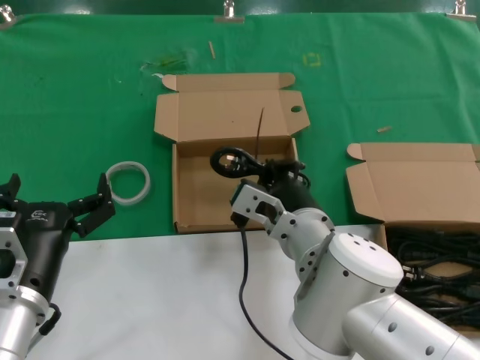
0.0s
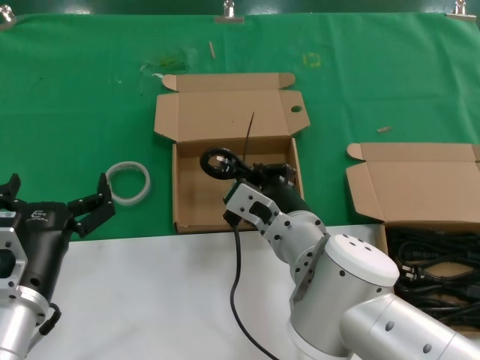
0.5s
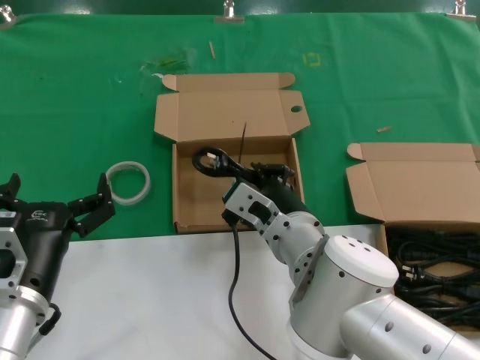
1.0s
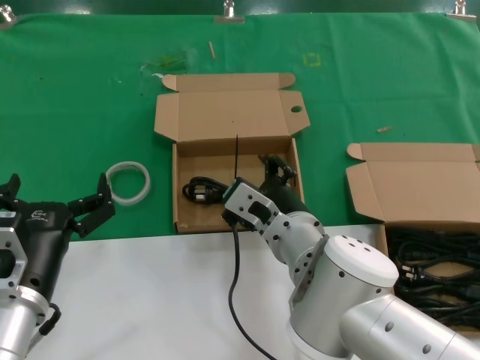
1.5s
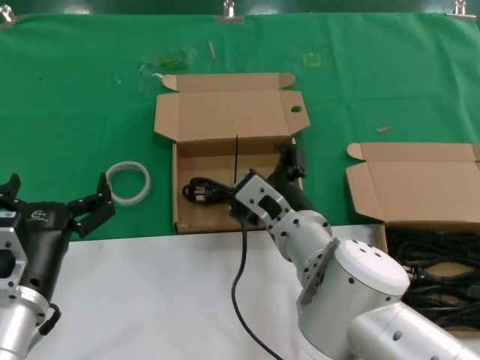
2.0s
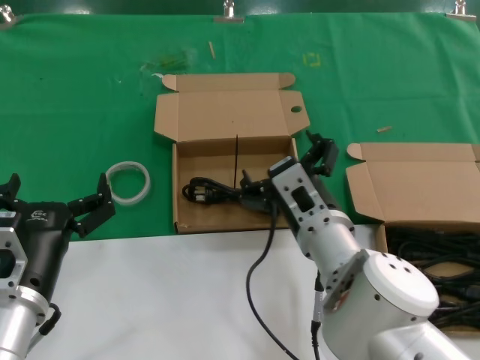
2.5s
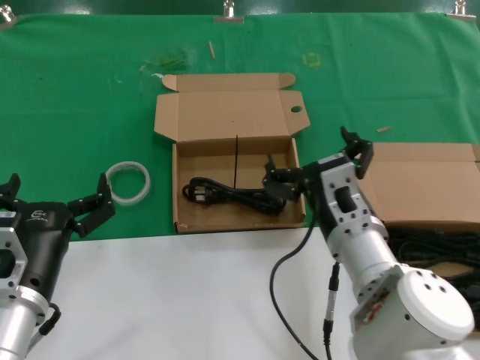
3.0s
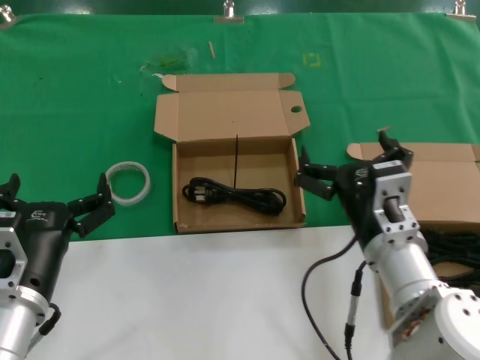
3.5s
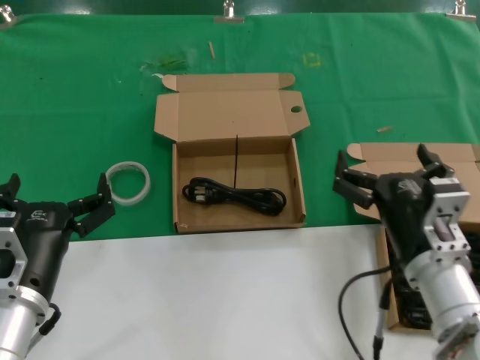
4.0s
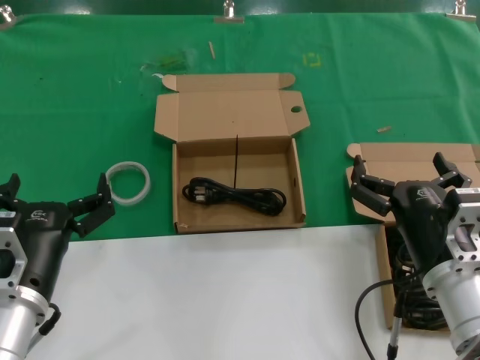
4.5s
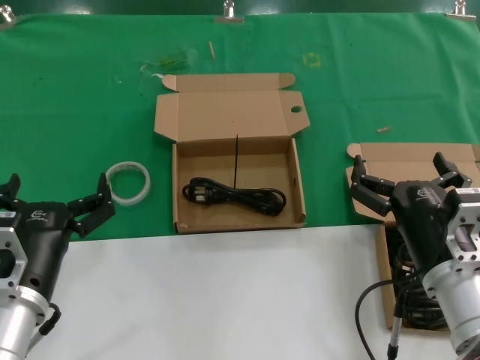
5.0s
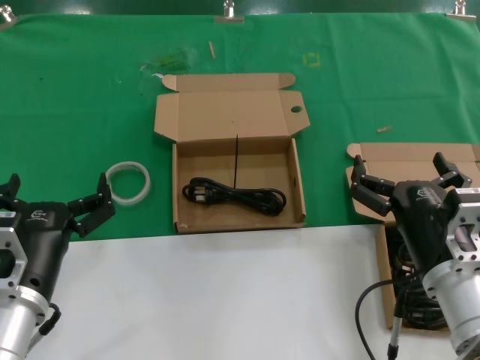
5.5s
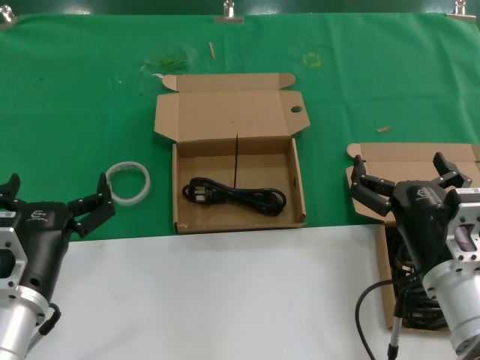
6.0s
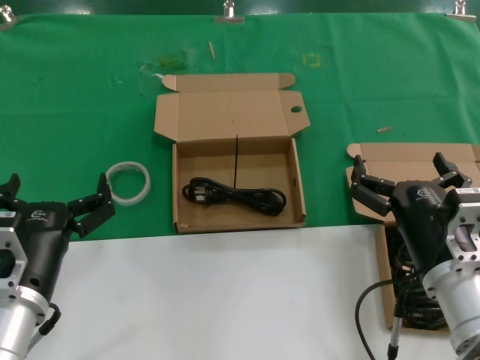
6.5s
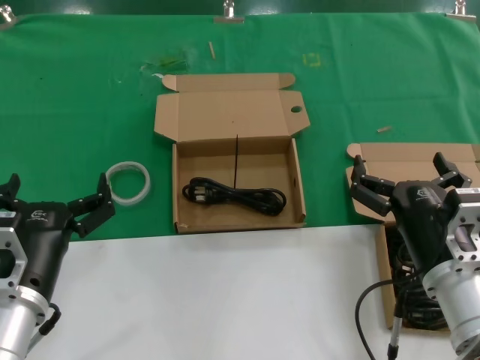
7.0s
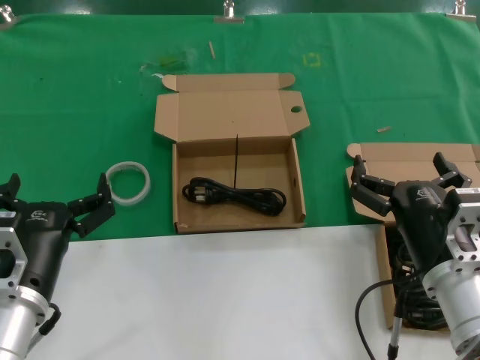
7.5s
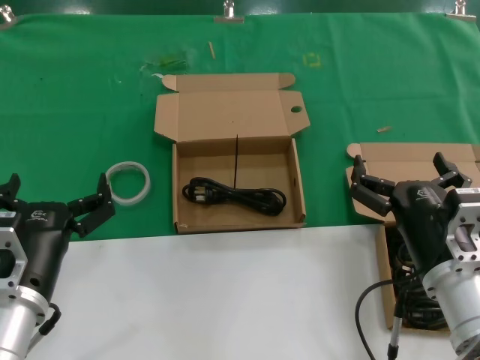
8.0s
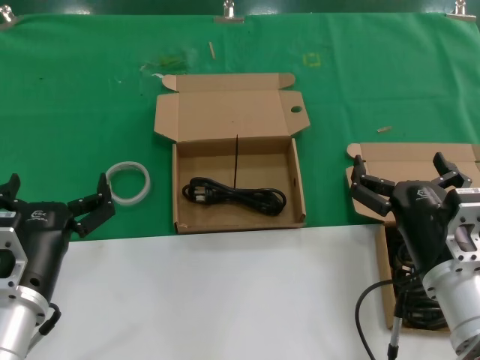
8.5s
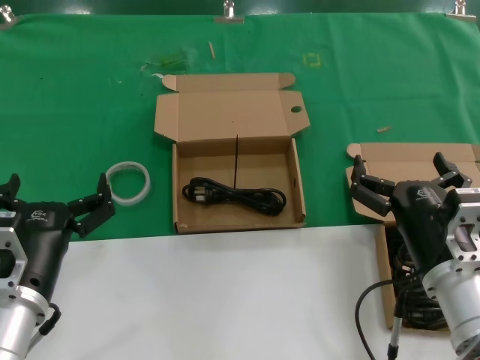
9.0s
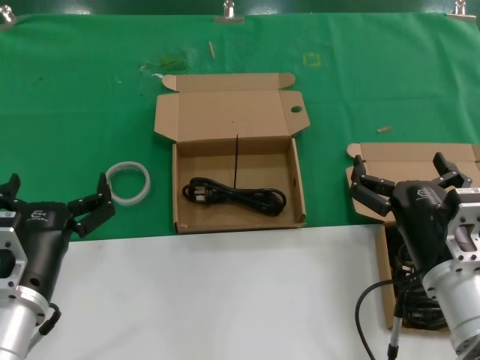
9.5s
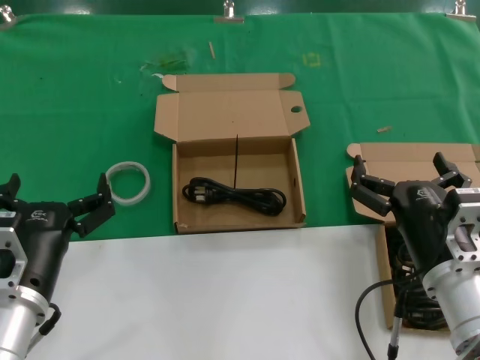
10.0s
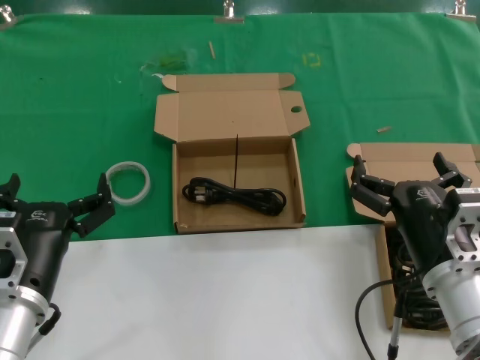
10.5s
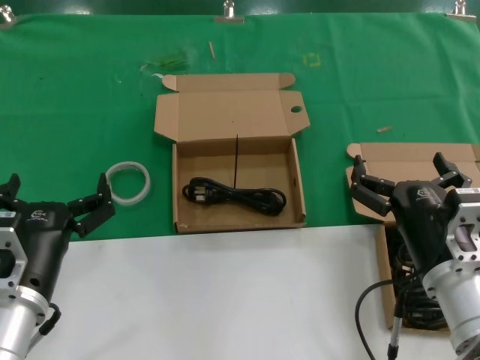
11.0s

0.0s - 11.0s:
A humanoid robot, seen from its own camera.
Task of the whole recording: take the parts from the box containing them and put them into an empty box.
0.0s - 2.0s: There are only small adjustments of the hands.
2.0s - 3.5s: The right hand travels to the right by approximately 10 cm.
3.5s - 5.5s: The right hand is displaced to the right by roughly 5 cm.
5.5s - 11.0s: Both hands stay about where they are.

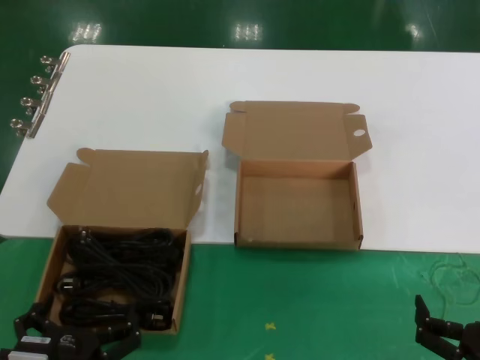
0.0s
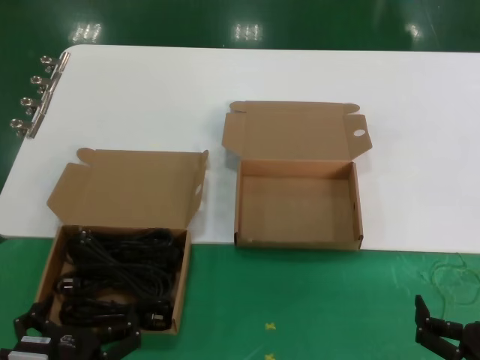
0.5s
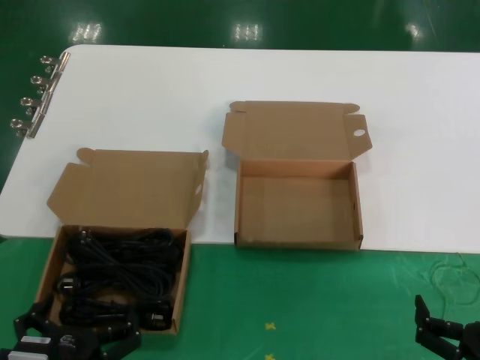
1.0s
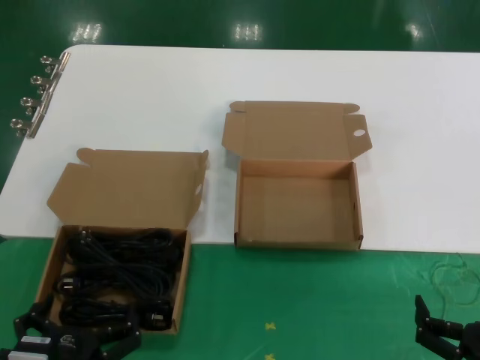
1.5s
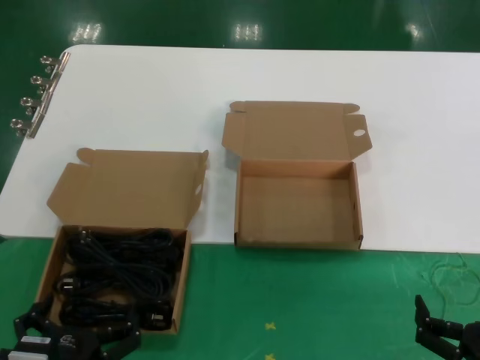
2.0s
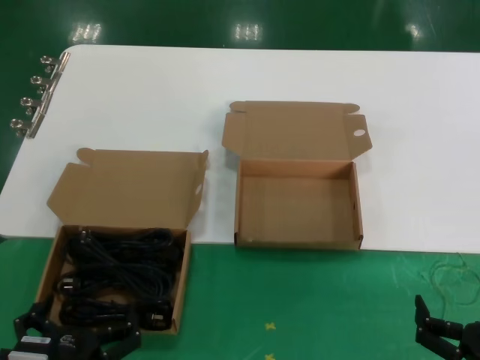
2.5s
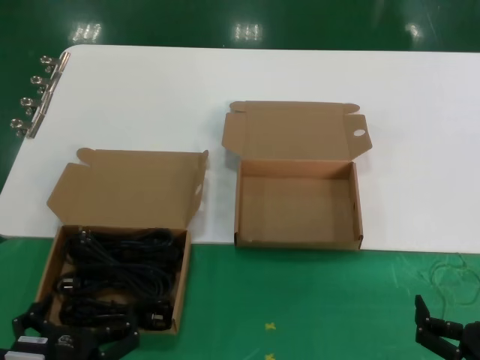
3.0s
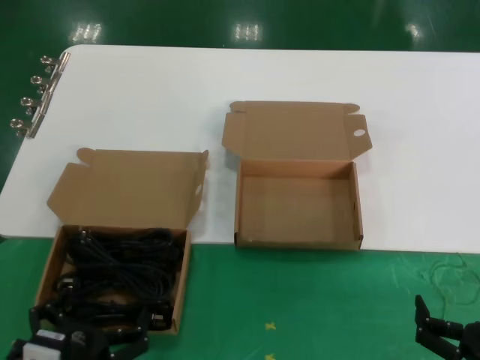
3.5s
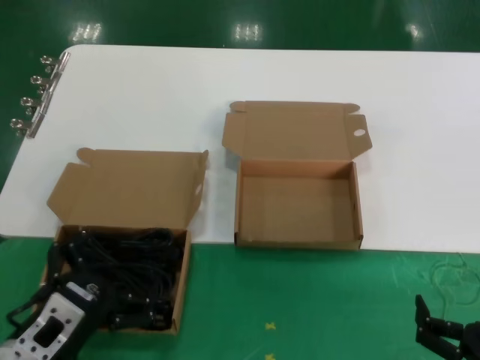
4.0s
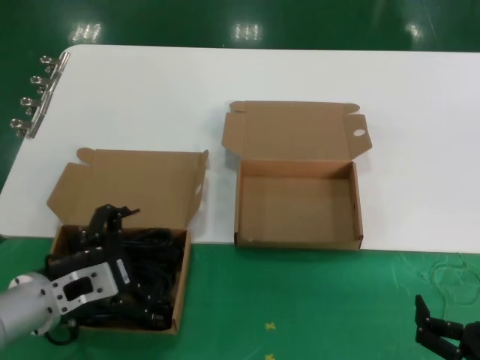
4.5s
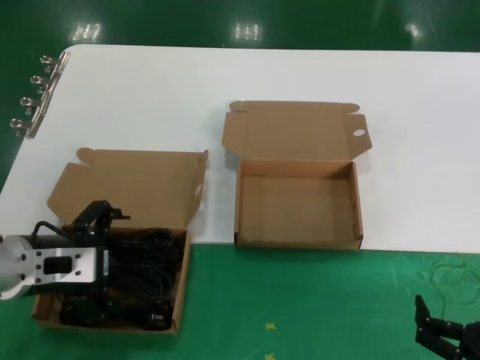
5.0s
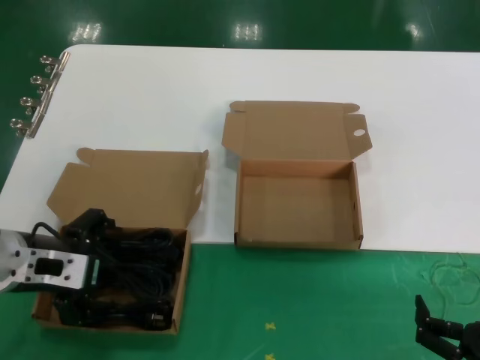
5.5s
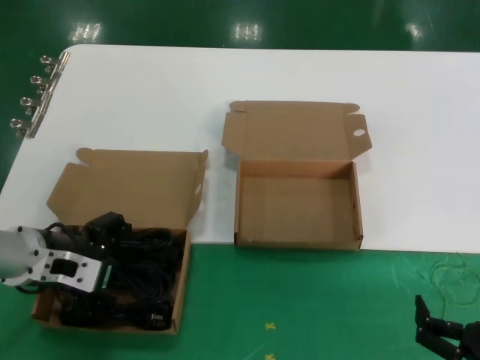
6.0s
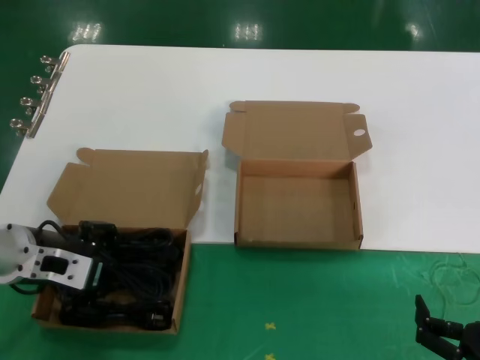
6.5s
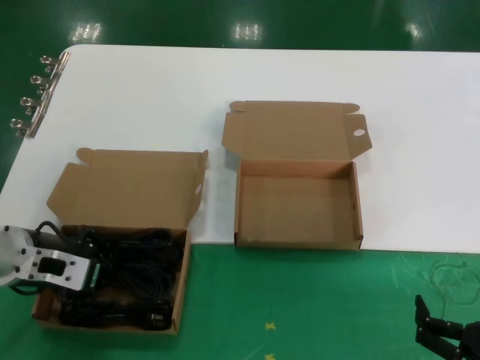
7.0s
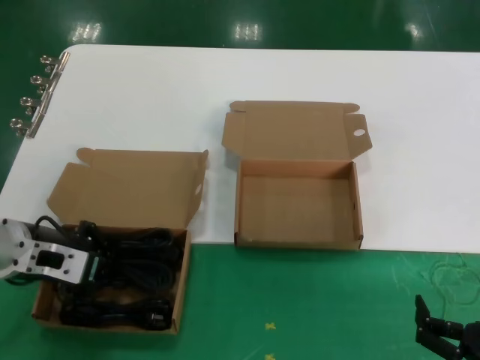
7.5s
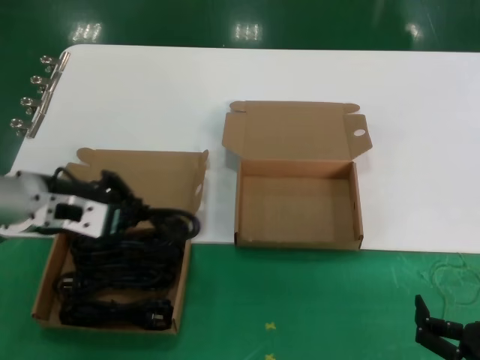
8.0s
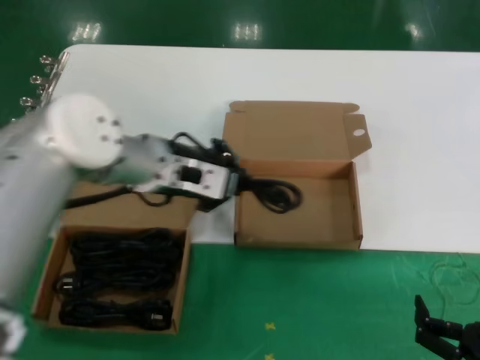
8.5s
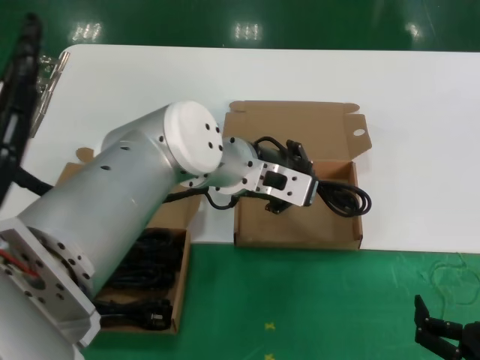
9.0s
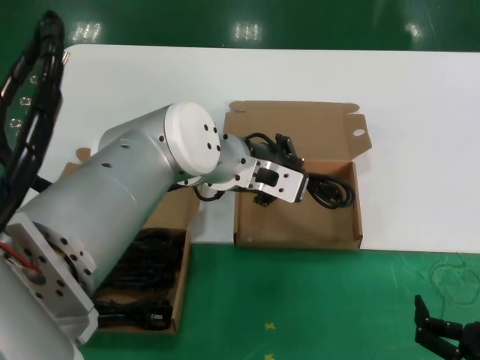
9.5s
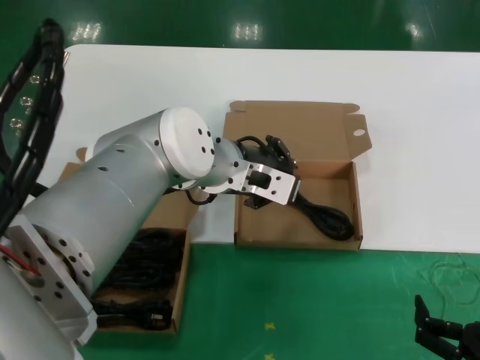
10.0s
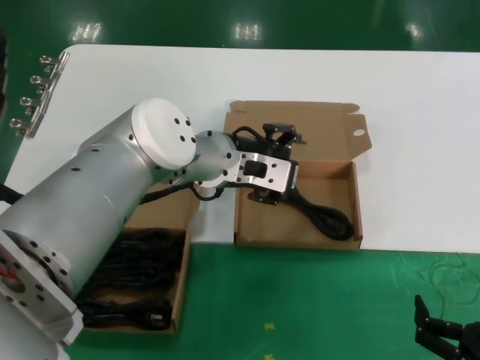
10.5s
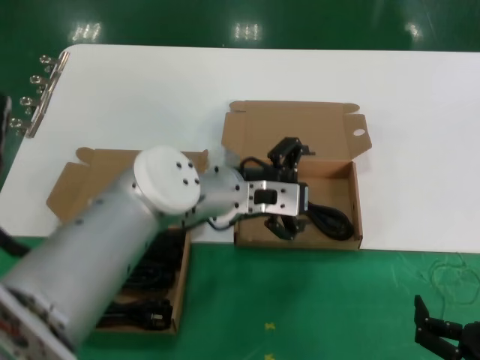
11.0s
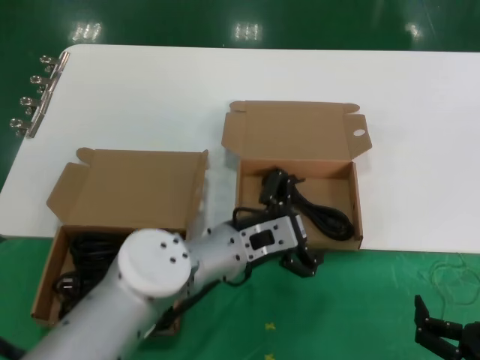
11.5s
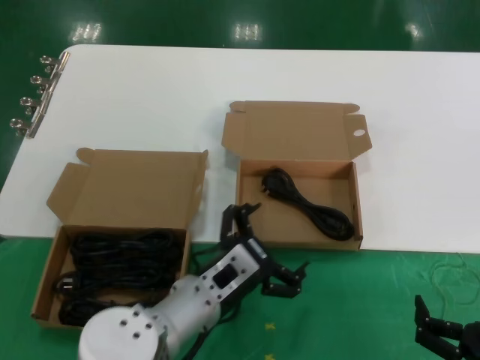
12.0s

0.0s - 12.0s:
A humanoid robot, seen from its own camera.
Task of the whole recording: take the parts from the box containing them and put them into an empty box.
Step, 0.0s - 7.5s: Grasp the data cable.
Step, 8.0s - 11.0s: Place the data cable in the another box.
0.0s - 2.0s: The two hands keep their place.
2.0s - 4.0s: The left hand shifts about 5 cm forward.
4.0s - 6.0s: The left hand is displaced forward and upward by approximately 20 cm.
6.0s - 8.0s: The left hand goes some 5 cm upward.
8.0s - 10.0s: The left hand travels to the right by some 20 cm.
10.0s - 12.0s: The left hand is displaced downward and backward by some 20 cm.

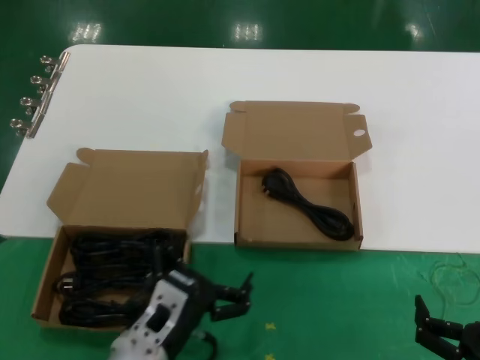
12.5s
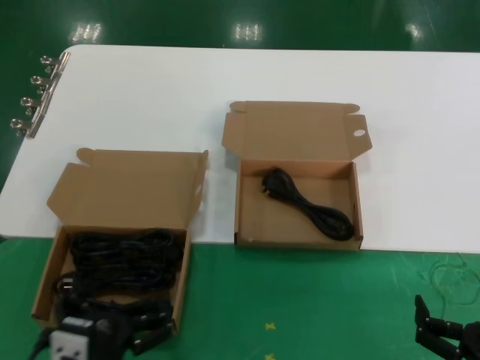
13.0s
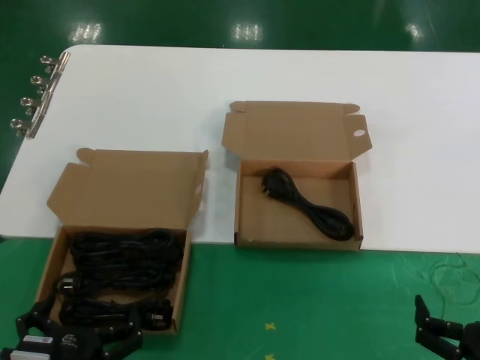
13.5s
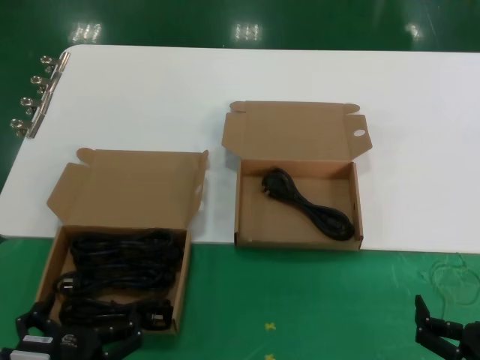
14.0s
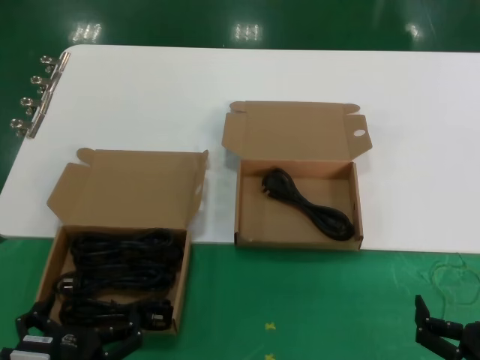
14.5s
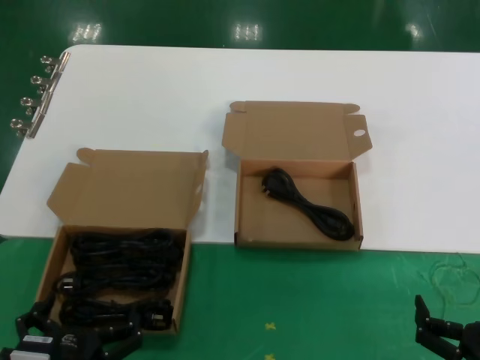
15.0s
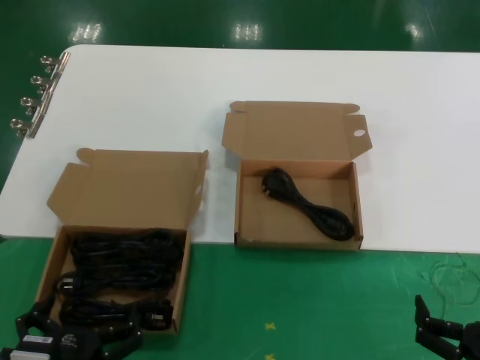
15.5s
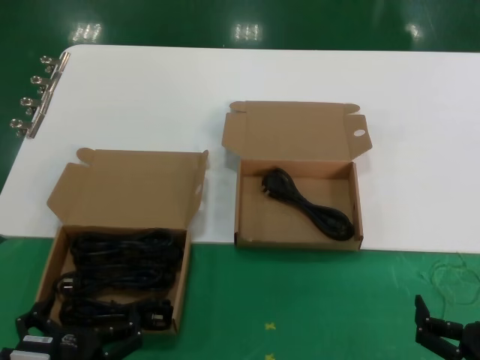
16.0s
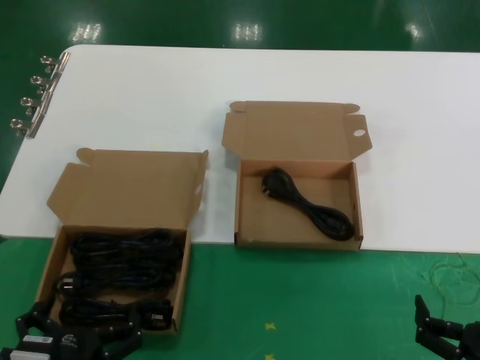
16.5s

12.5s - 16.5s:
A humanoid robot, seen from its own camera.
Task of the whole recording: take the parts from the box containing them and put them into an empty box.
12.5s - 14.5s: The left hand is displaced backward and to the left by some 15 cm.
14.5s - 16.5s: Both hands stay put.
